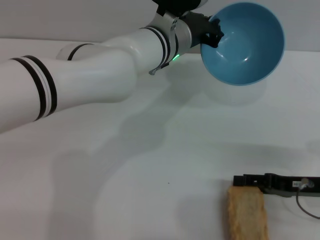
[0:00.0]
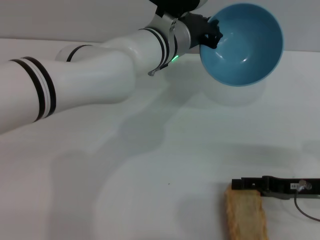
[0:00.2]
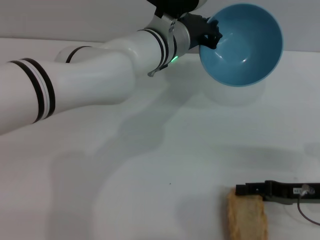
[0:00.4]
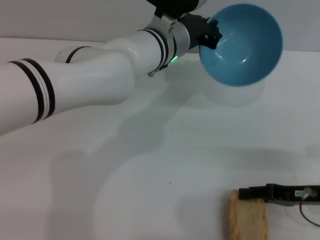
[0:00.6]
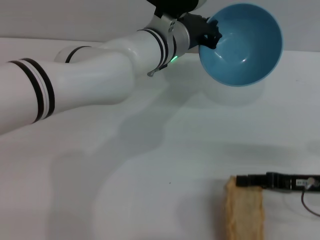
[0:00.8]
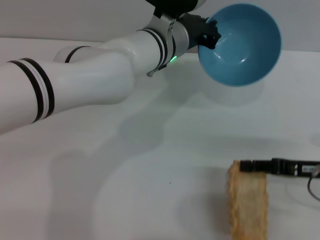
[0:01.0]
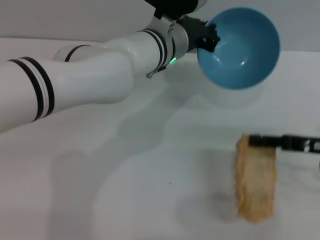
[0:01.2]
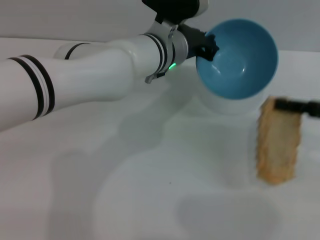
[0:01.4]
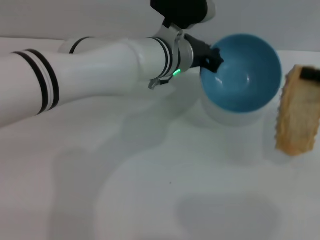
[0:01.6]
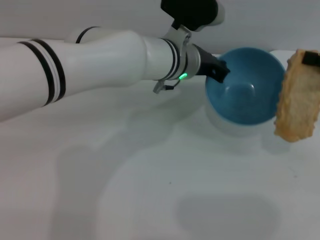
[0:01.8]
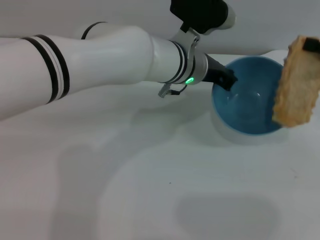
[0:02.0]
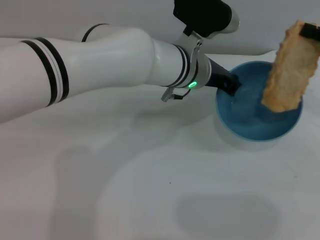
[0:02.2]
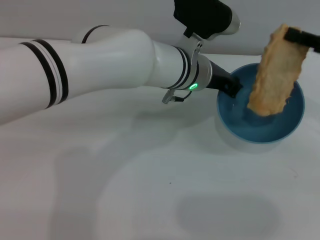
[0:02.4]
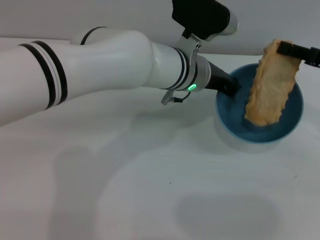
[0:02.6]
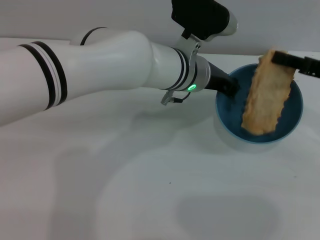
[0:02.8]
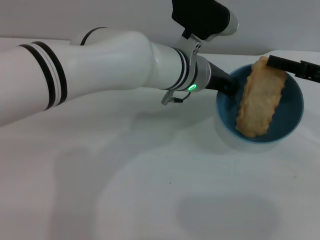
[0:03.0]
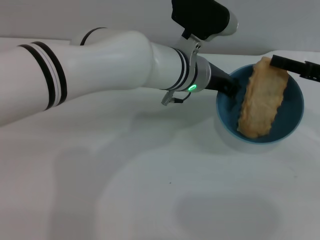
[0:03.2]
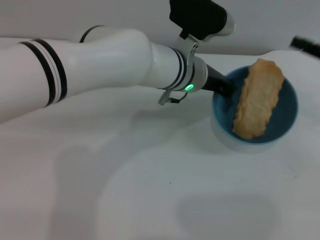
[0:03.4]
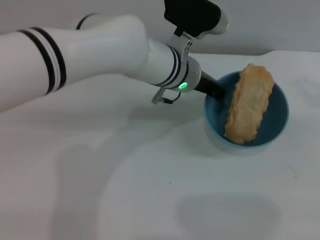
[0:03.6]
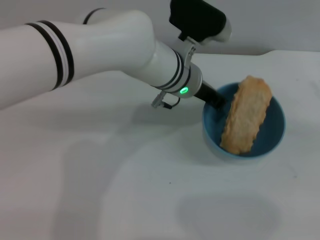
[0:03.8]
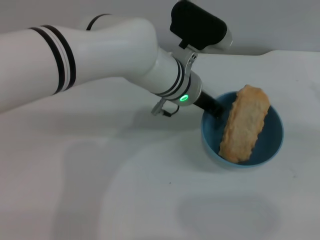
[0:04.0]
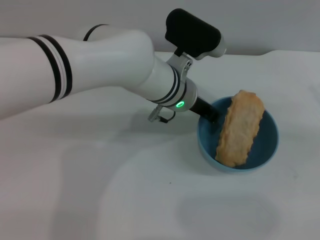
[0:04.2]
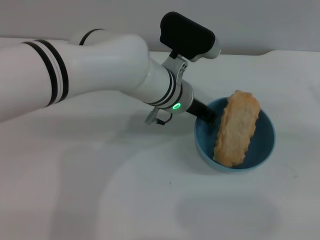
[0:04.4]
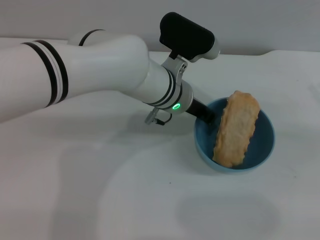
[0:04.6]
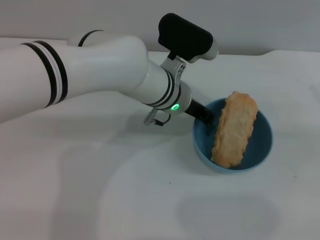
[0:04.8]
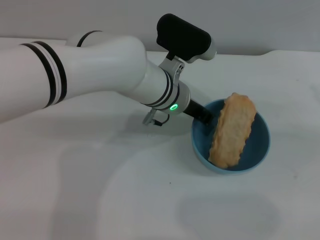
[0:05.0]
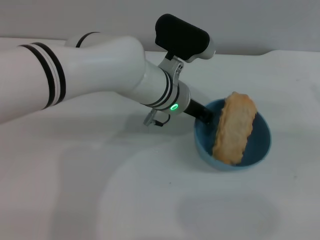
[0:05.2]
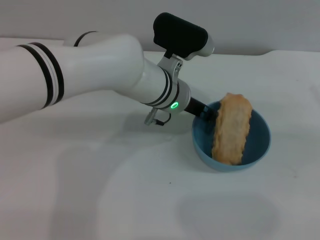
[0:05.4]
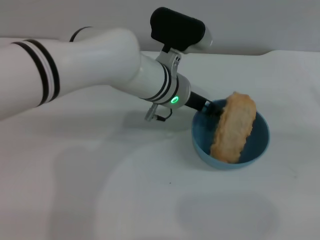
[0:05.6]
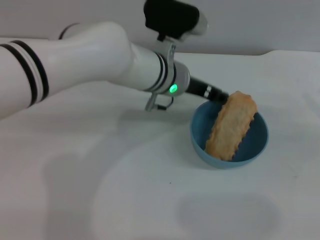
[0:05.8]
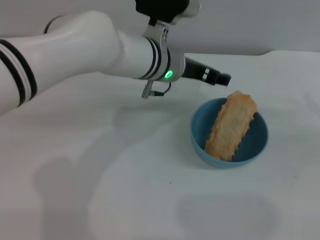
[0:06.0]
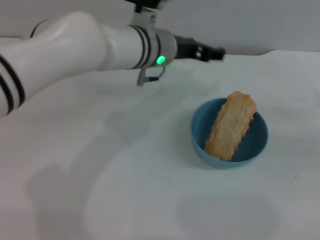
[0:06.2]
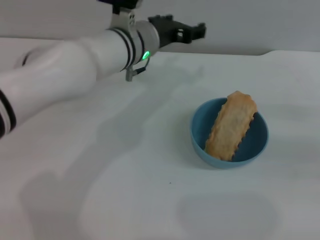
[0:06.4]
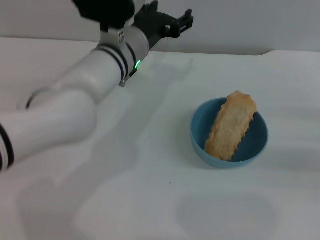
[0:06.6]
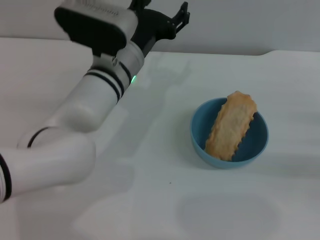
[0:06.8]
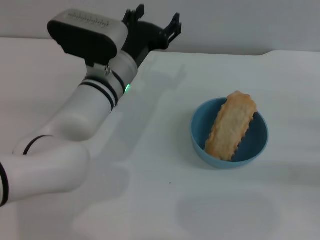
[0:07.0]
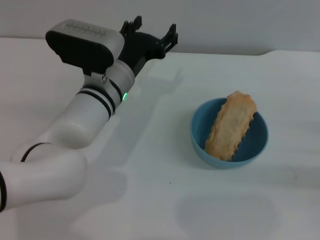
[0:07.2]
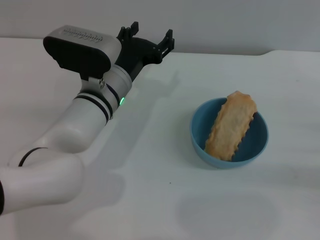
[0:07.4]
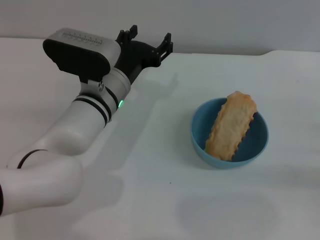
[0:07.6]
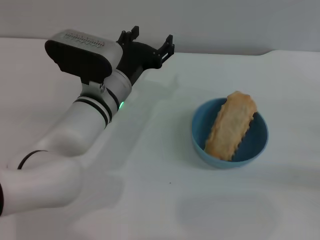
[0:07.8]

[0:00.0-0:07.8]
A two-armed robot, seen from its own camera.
Task of the whole recording: put the bread into the blue bowl and pour it out repeatedly.
Step, 0:01.6 to 0:03.2: Place the bread into the bowl.
Step, 0:03.6 to 0:06.0: Place the bowl on the table.
0:00.0 to 0:01.6: The right gripper moves upward, to the right and forward, some 15 cm, and closes.
0:01.6 to 0:03.2: The right gripper ends up some 5 cm from where it was.
0:03.2 to 0:04.6: The right gripper shifts about 5 cm to the right.
0:04.6 to 0:06.2: The left gripper moves roughly 5 cm, and opens its fingers.
0:06.2 to 0:07.8: The left gripper moves downward, backward and to the left, approximately 10 cm; the right gripper moves downward, approximately 5 cm.
